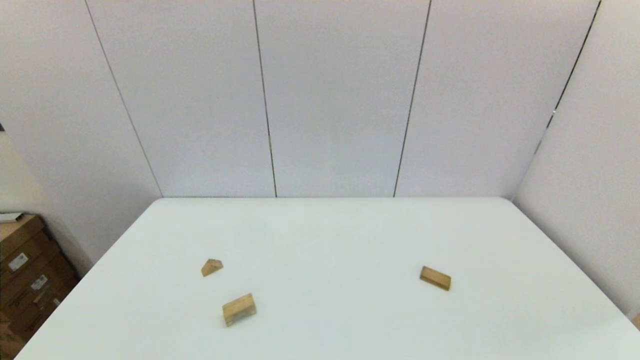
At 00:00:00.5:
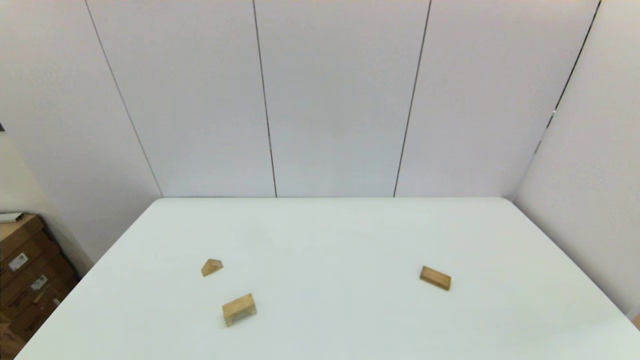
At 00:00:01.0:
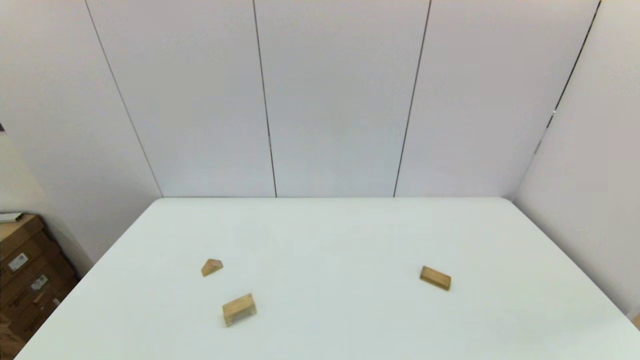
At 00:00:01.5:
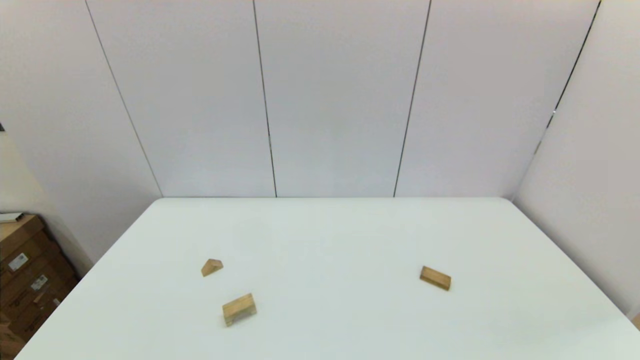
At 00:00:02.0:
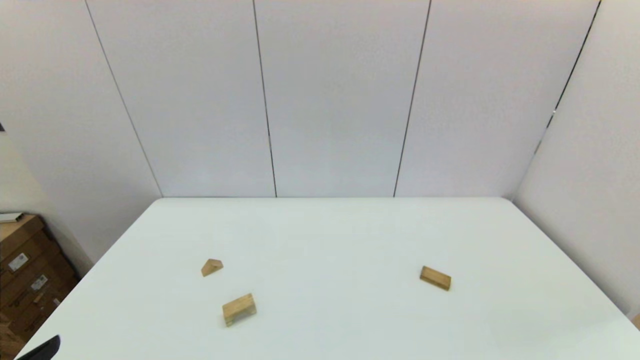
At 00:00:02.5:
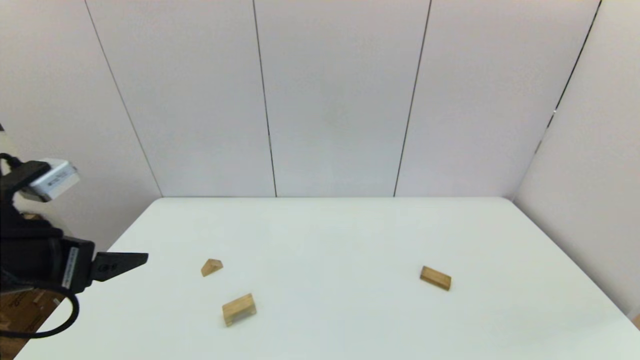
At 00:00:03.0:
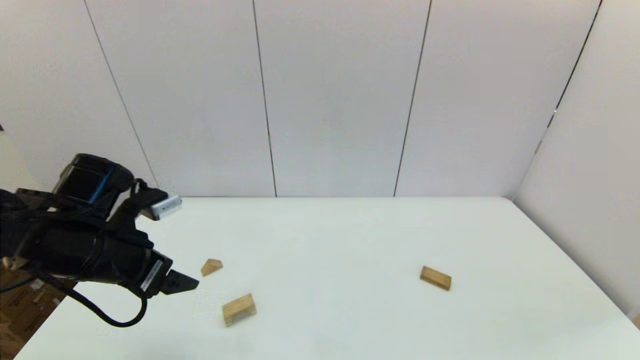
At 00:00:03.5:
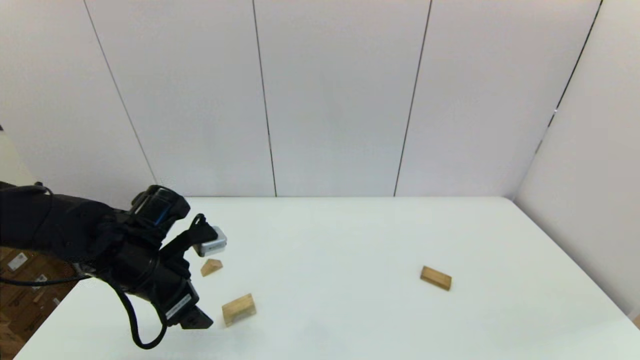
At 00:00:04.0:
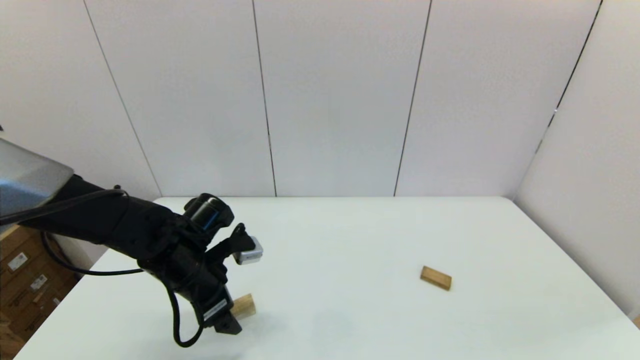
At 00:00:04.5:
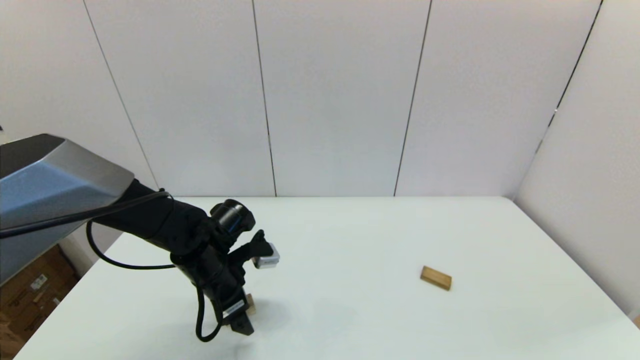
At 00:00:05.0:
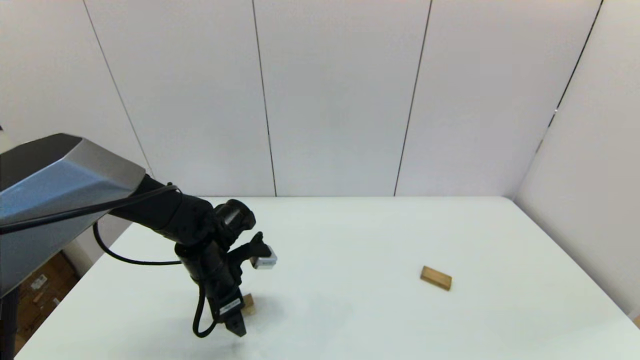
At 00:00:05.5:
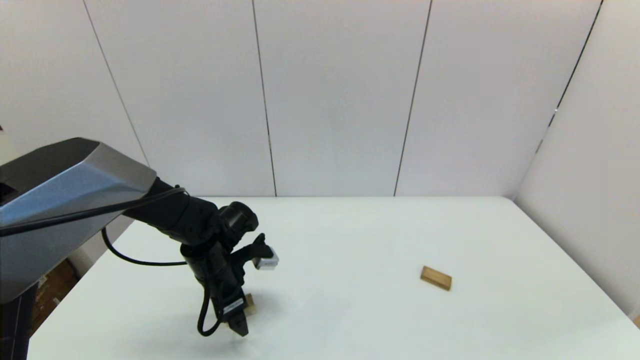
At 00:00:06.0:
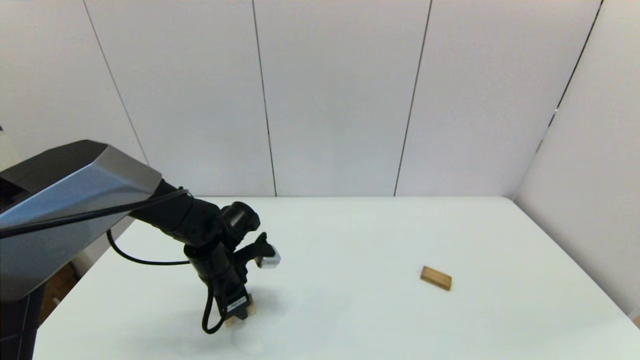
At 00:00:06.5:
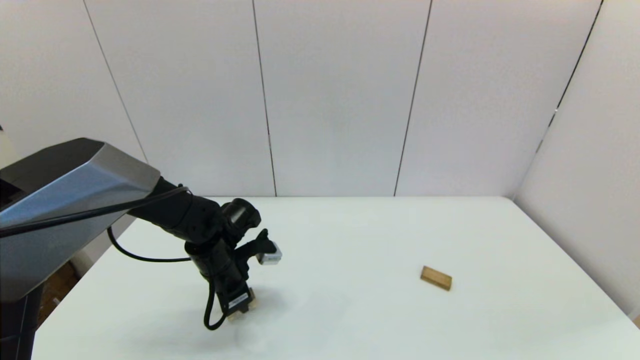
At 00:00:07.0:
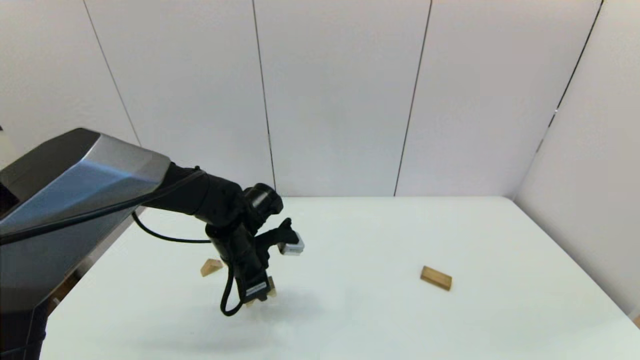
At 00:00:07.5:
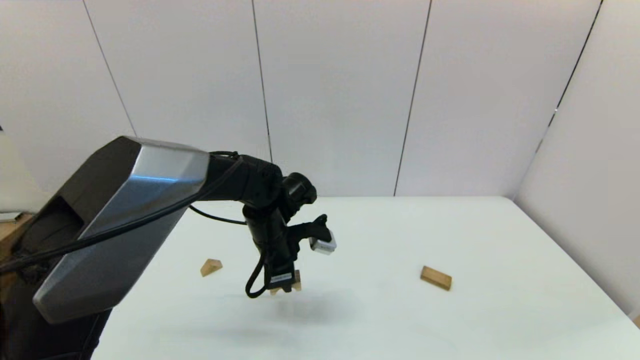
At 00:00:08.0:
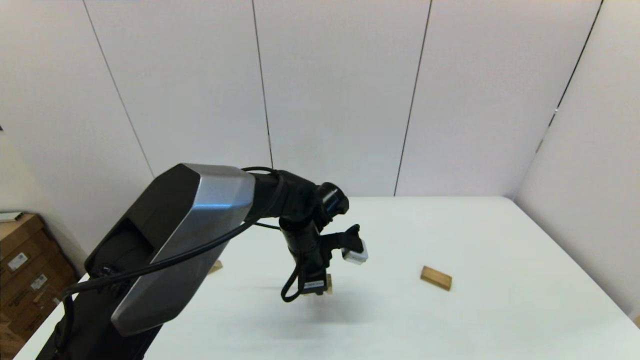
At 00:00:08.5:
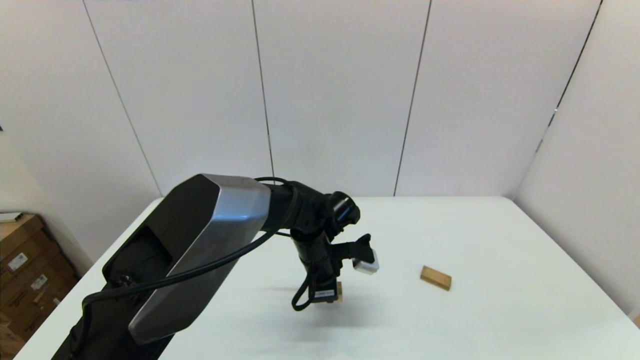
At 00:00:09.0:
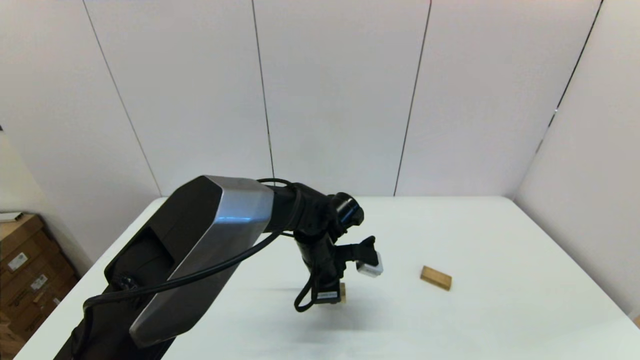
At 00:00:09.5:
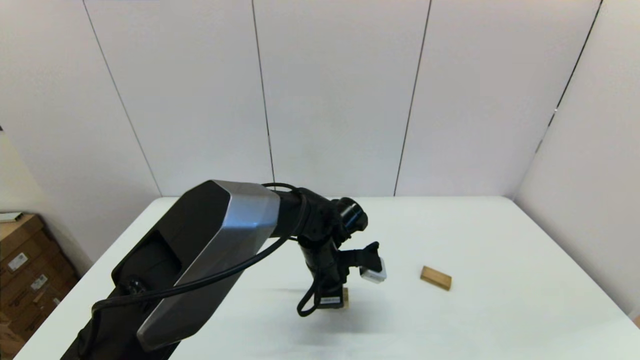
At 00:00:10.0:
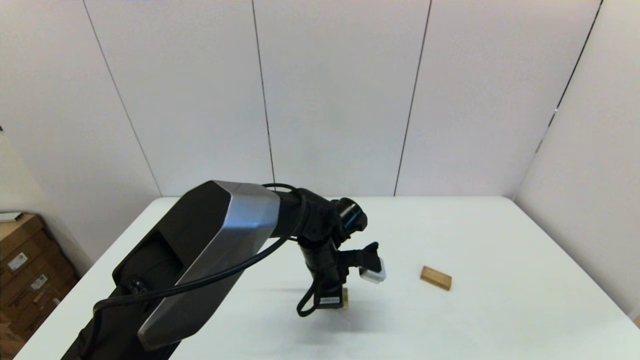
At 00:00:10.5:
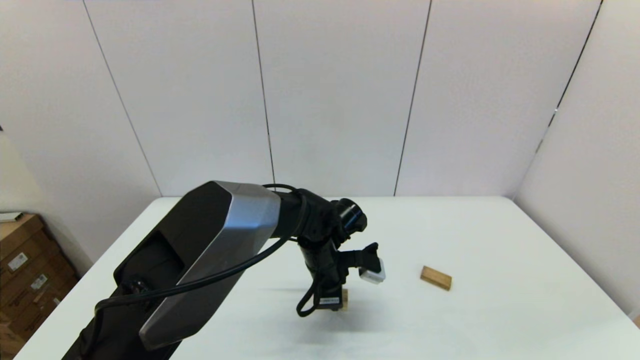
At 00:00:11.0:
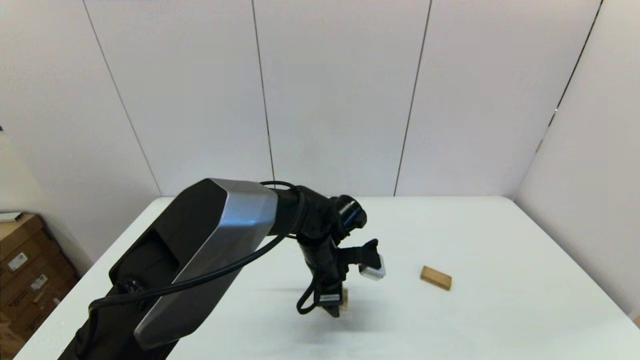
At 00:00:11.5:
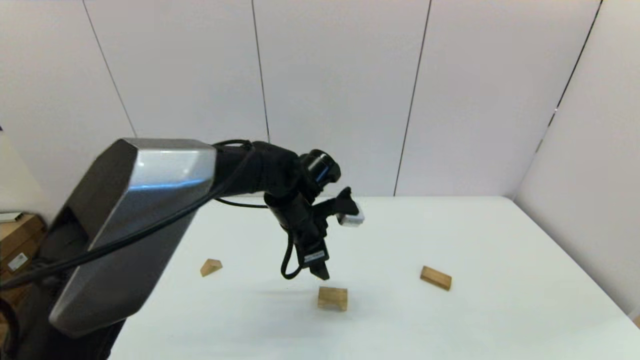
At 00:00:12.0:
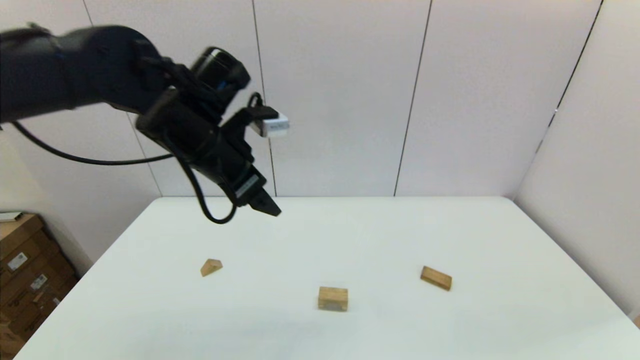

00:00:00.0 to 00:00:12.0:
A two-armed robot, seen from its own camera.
Task of the whole recording: place the arched building blocks in the center of the table, set up the rectangular building blocks, and then set up the triangular building blocks.
Step, 00:00:02.0 to 00:00:06.0: Grasp the arch-shaped block with the left gripper.
Step, 00:00:06.5 to 00:00:10.5: Place the arch-shaped block in the center of view with the left gripper.
00:00:02.0 to 00:00:04.0: The left gripper travels forward, downward and to the right by some 30 cm.
00:00:04.0 to 00:00:06.0: The left gripper shifts by approximately 5 cm, and closes its fingers.
00:00:06.0 to 00:00:08.0: The left gripper shifts some 15 cm to the right.
00:00:08.0 to 00:00:10.0: The grippers stay close to where they were, moving slightly.
00:00:10.0 to 00:00:12.0: The left gripper shifts roughly 30 cm upward and to the left, and opens up.

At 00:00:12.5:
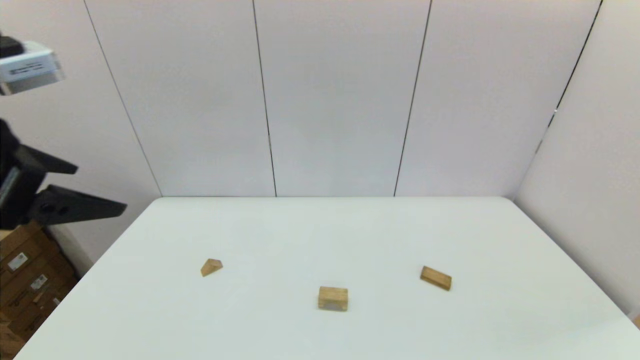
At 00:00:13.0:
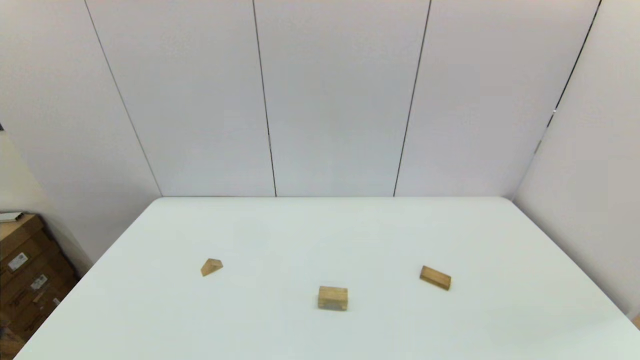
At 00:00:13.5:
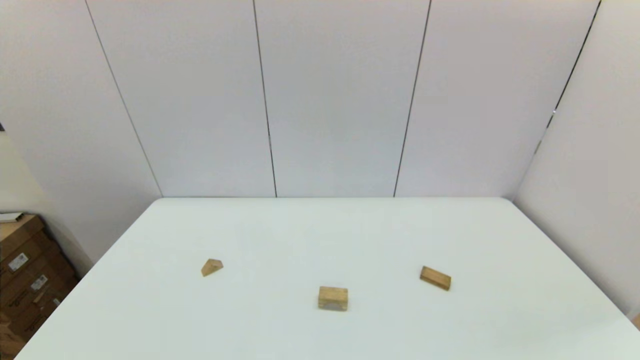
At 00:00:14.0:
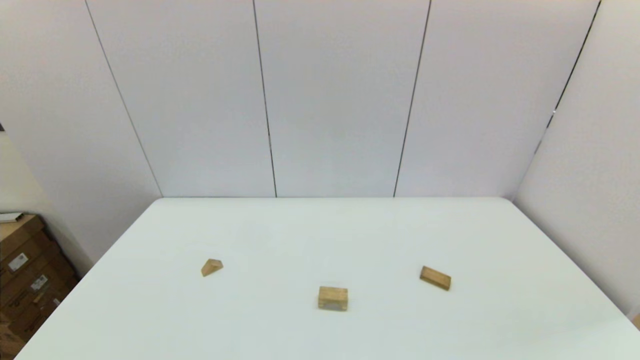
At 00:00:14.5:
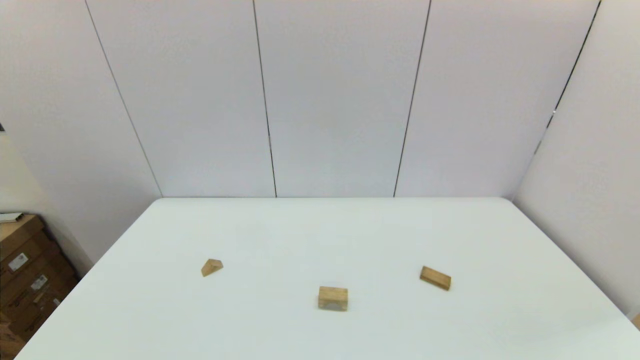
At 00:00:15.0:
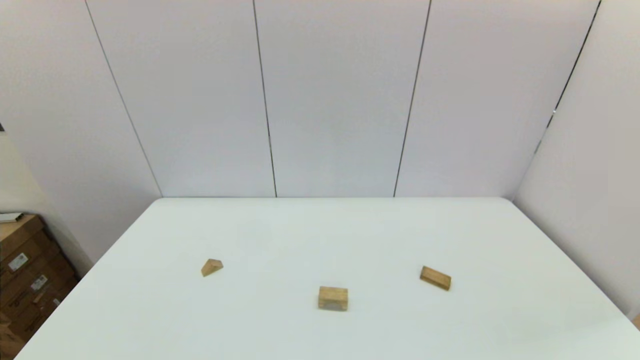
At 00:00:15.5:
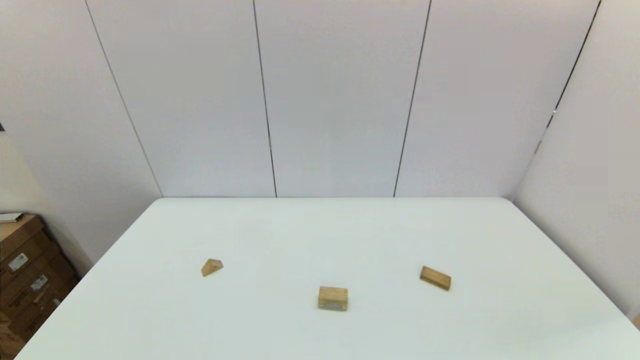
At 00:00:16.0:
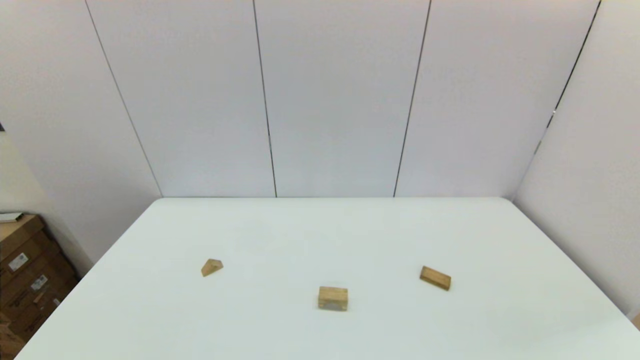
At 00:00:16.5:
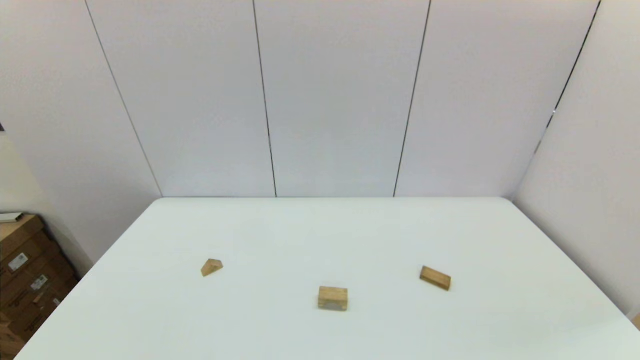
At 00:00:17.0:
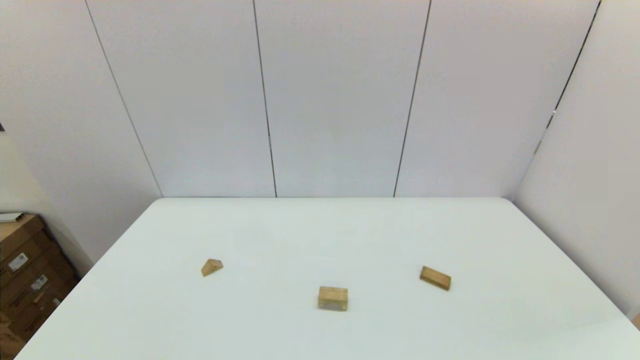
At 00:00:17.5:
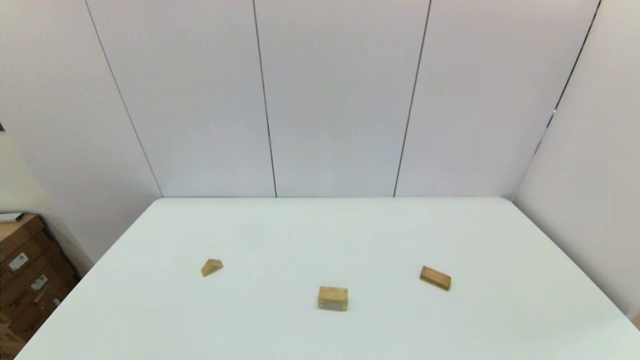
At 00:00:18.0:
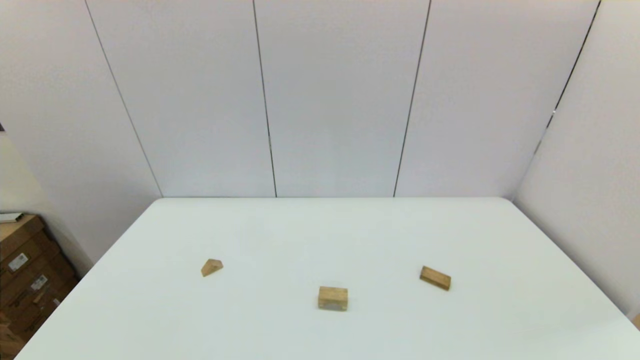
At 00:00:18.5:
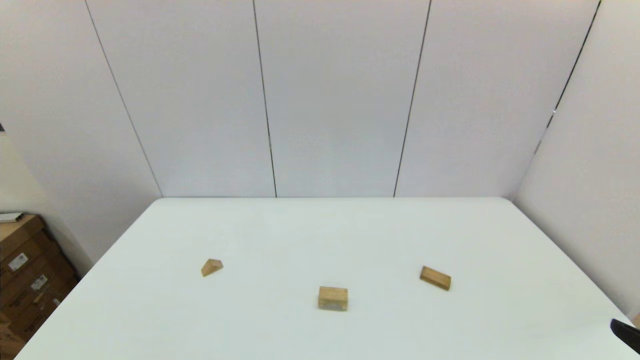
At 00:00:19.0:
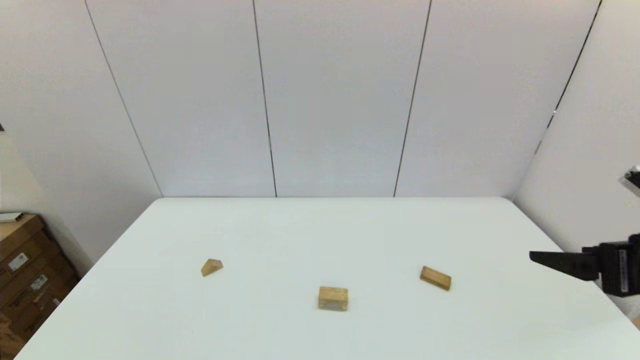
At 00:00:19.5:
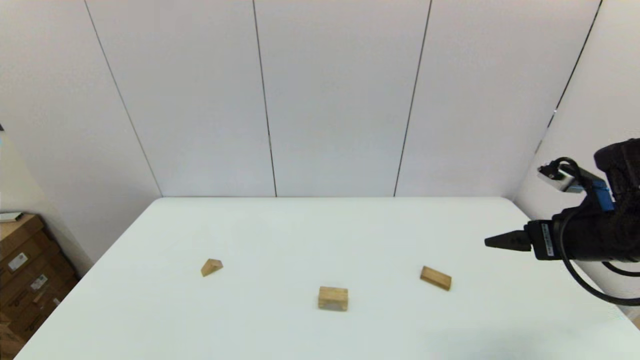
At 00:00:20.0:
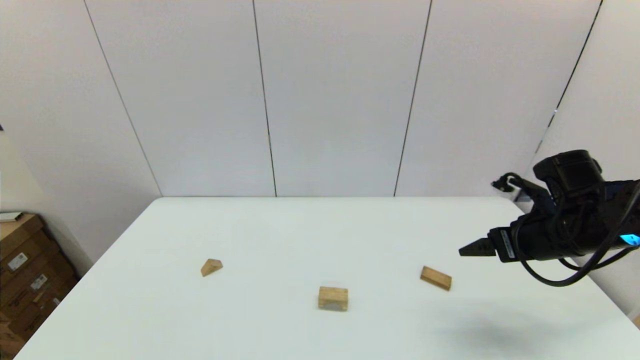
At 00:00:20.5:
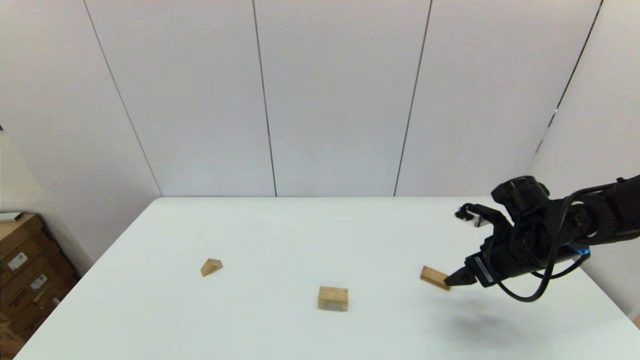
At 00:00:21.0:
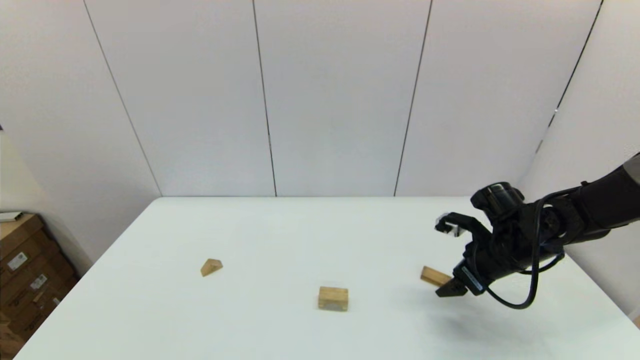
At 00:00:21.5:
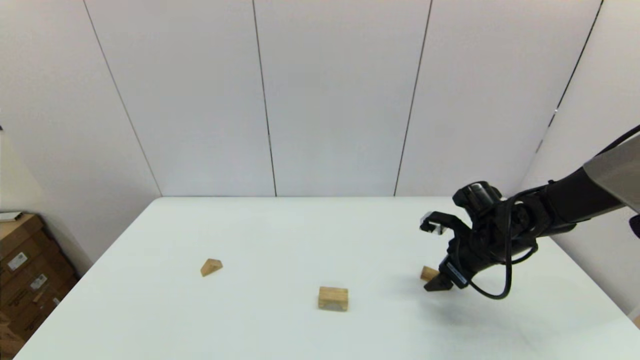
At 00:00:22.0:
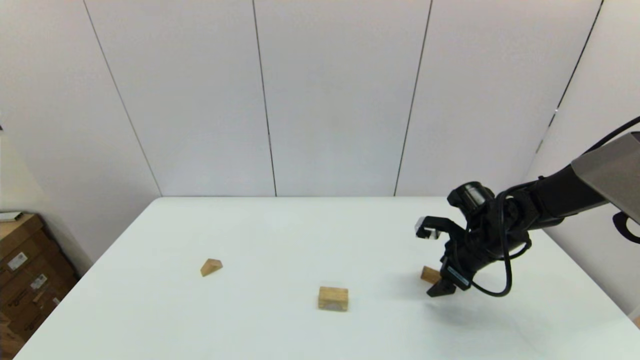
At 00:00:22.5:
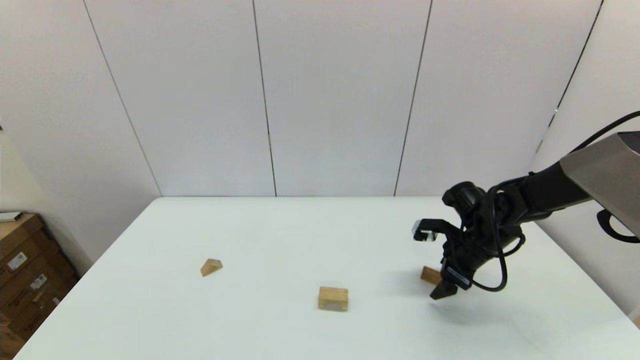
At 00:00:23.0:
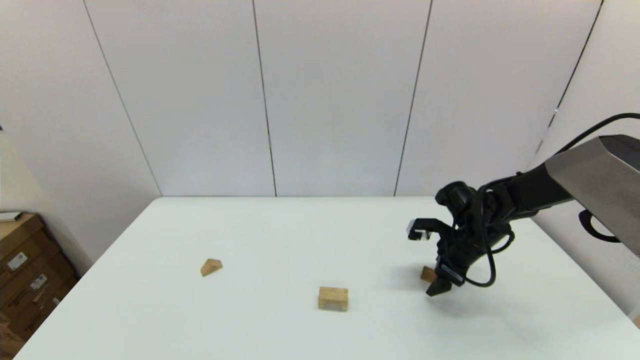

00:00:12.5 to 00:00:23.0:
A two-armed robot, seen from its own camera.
Task of the whole recording: place the arched building blocks in the center of the table, set up the rectangular building blocks, and then set up the triangular building blocks.
00:00:12.5 to 00:00:14.5: The left gripper moves downward and backward, about 30 cm.
00:00:16.5 to 00:00:19.0: The right gripper is displaced forward and upward by some 25 cm.
00:00:19.0 to 00:00:21.0: The right gripper goes some 20 cm forward and downward.
00:00:21.0 to 00:00:23.0: The right gripper is displaced forward by some 5 cm.
